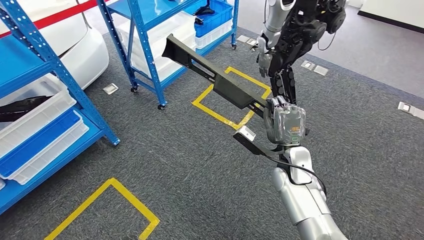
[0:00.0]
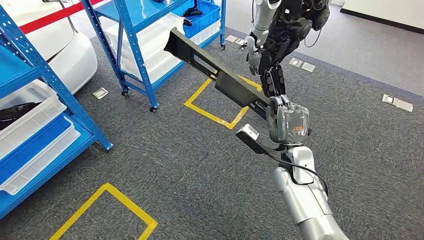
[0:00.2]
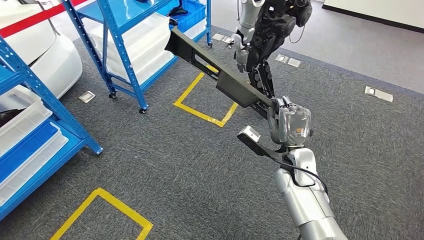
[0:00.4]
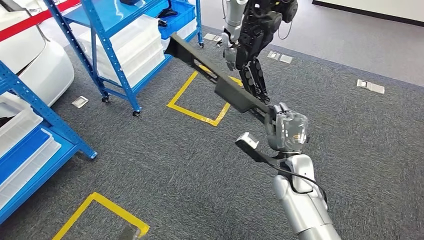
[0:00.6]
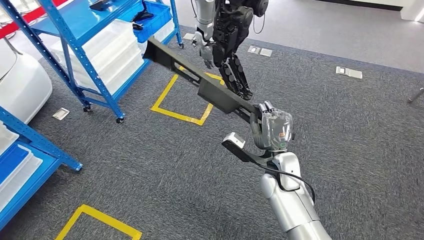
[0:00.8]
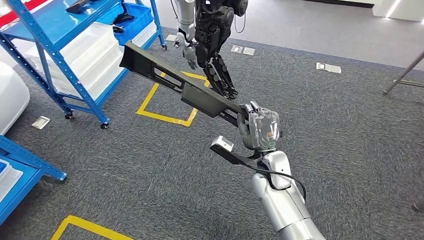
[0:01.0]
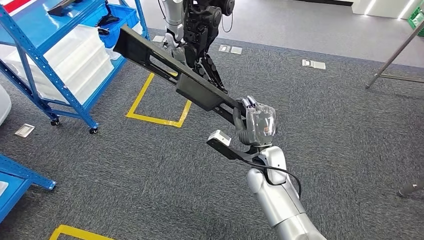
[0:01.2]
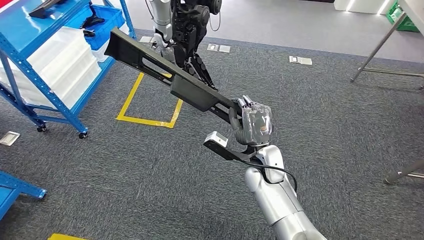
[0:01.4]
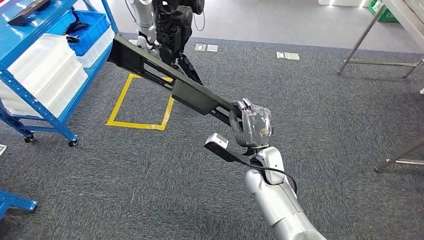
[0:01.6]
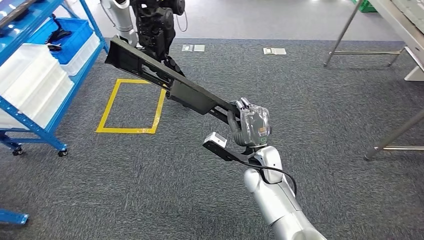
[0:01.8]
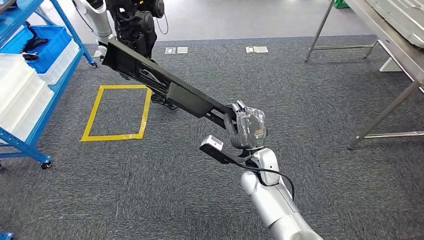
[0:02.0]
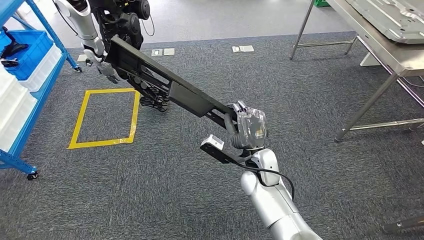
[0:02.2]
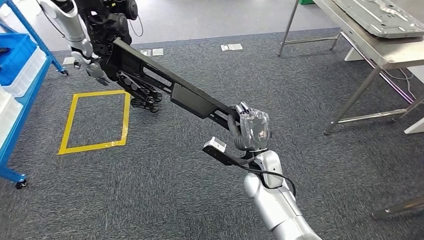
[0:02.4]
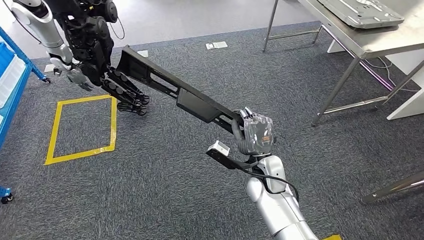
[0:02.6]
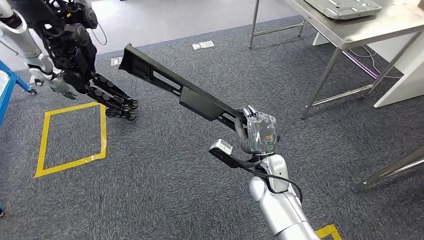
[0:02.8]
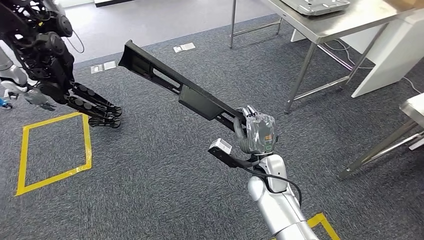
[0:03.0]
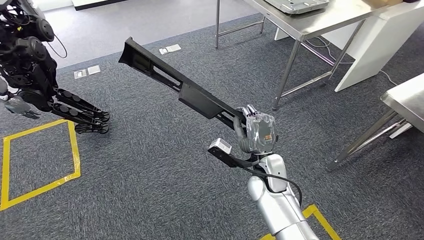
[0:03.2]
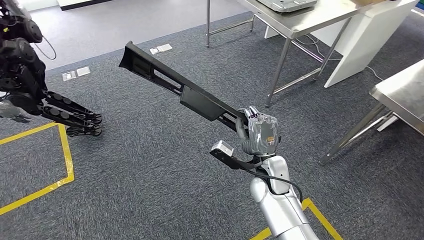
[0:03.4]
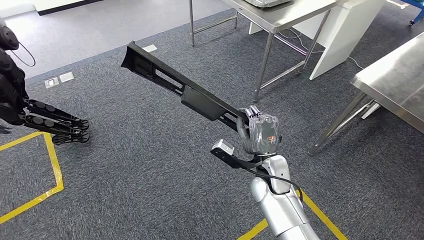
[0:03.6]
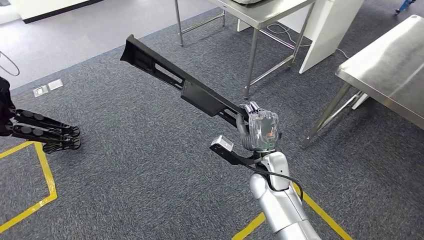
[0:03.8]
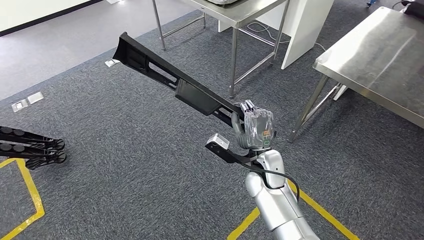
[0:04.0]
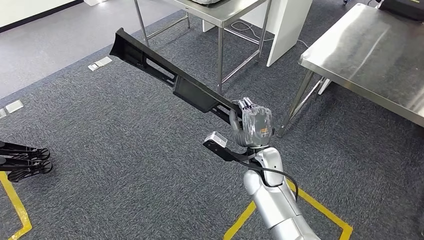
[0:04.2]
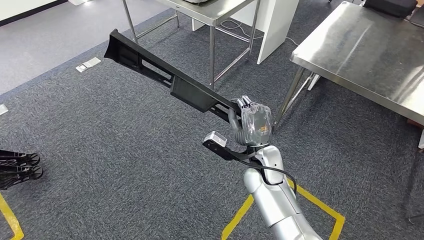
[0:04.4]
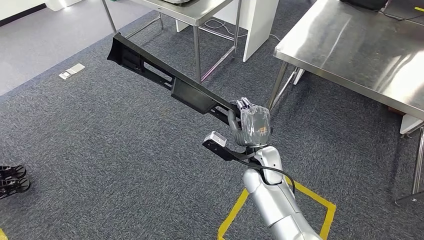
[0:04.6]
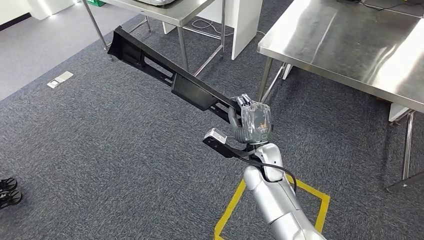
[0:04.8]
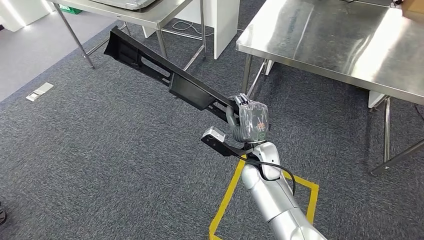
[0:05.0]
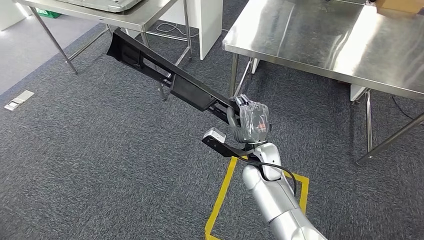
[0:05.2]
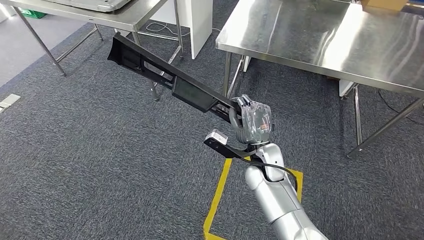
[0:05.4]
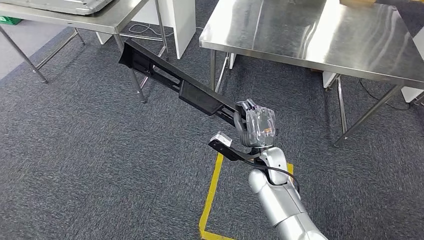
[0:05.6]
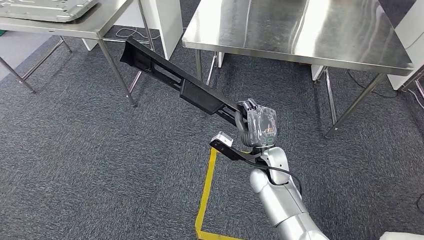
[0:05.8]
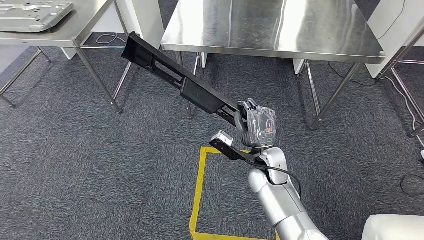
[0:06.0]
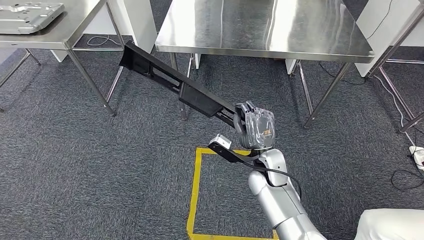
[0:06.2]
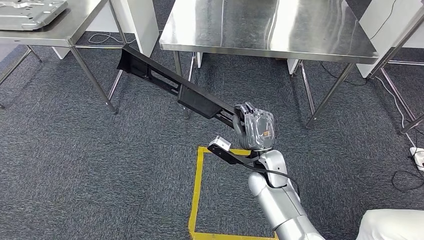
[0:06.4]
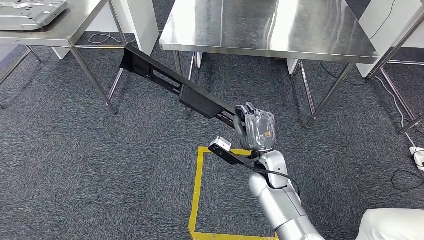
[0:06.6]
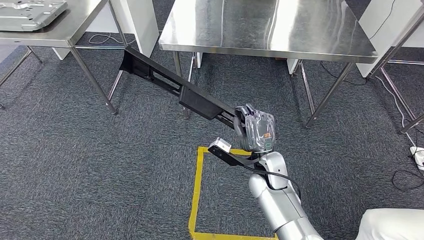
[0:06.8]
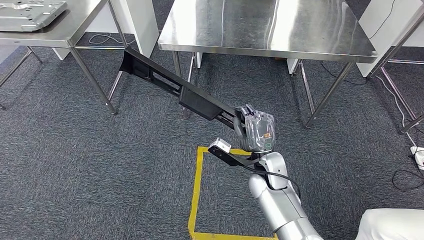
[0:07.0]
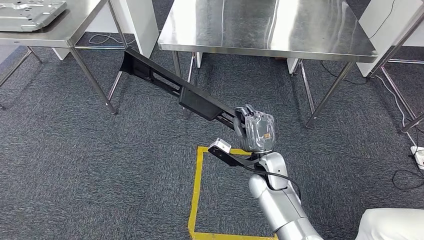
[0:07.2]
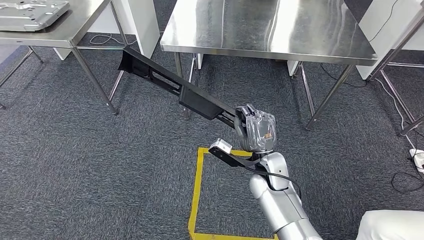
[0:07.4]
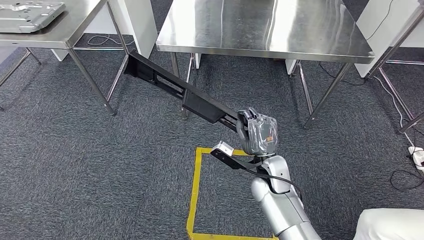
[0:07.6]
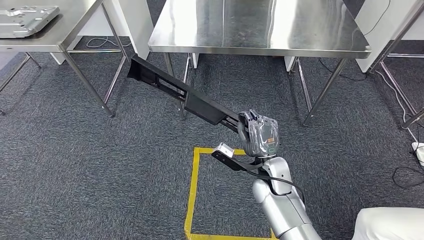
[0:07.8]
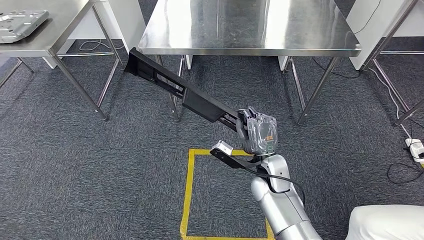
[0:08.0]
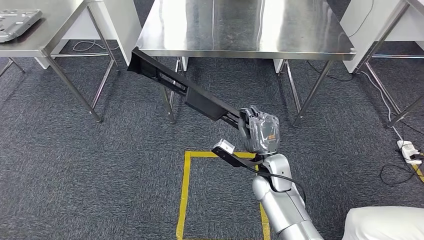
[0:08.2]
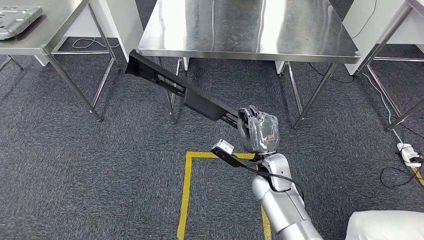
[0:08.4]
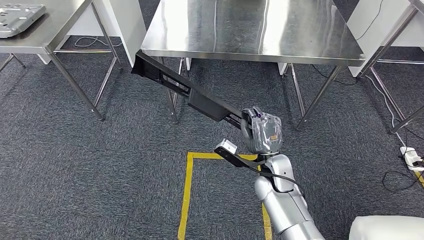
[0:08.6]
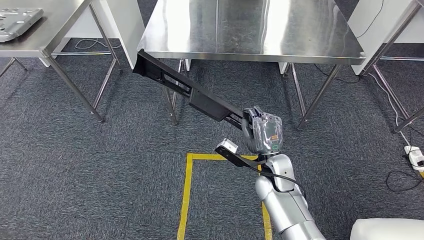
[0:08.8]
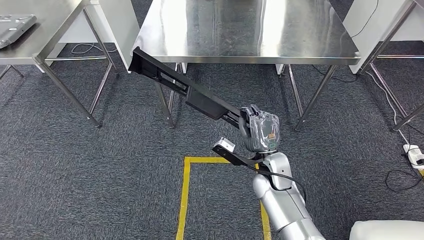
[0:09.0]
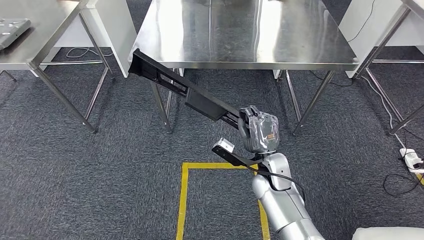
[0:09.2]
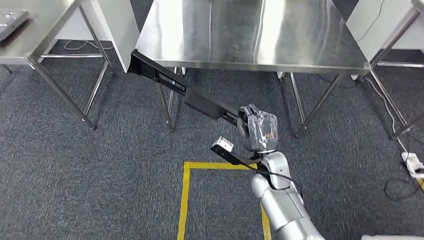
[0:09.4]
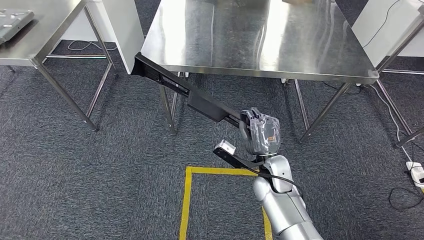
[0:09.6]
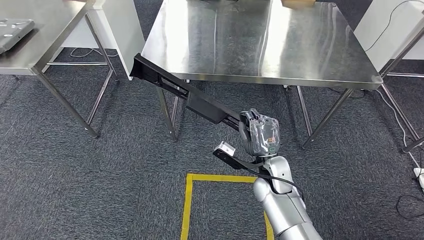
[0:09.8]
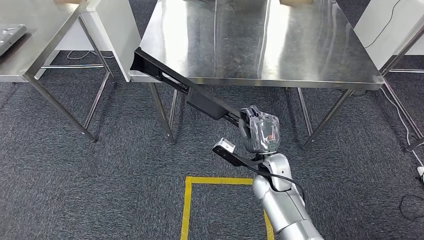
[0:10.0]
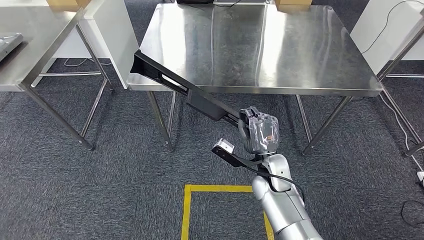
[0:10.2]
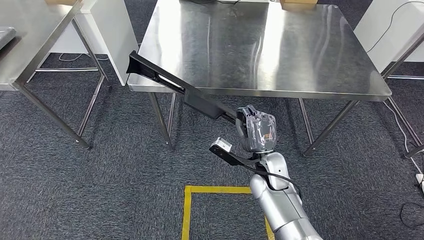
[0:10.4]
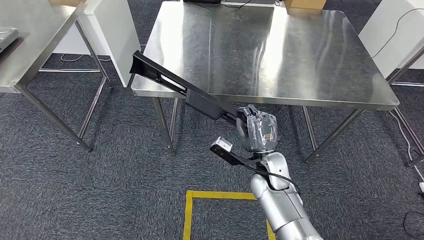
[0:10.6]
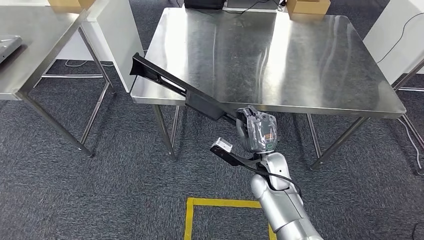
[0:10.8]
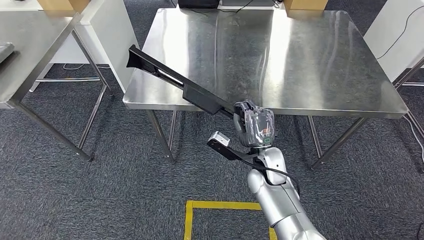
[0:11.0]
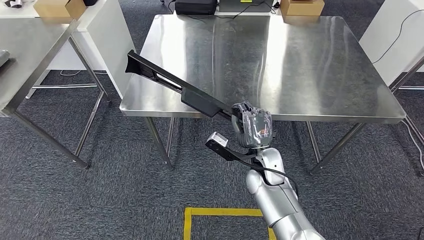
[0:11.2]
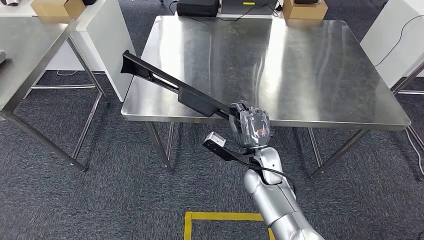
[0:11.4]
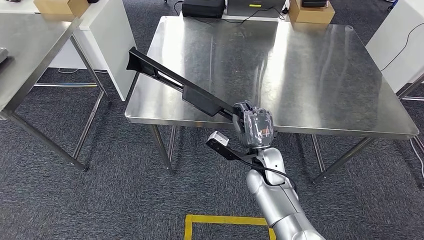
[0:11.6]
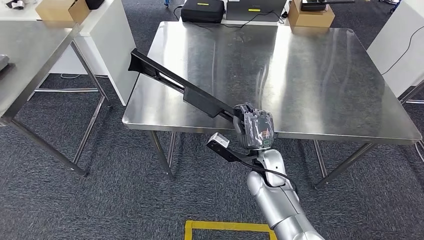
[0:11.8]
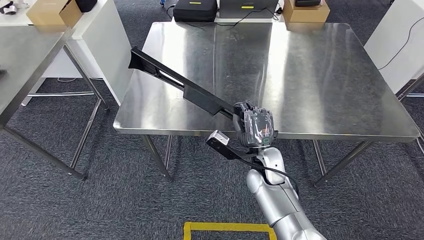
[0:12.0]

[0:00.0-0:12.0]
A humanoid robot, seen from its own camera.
Step, 0:00.0 to 0:11.6: Move the large material to the workbench.

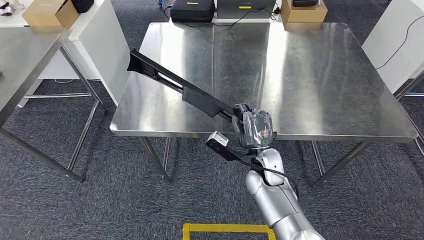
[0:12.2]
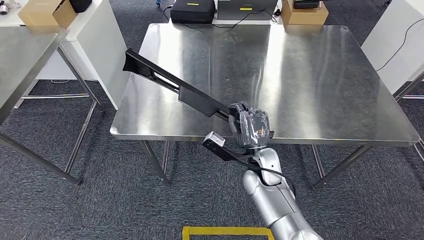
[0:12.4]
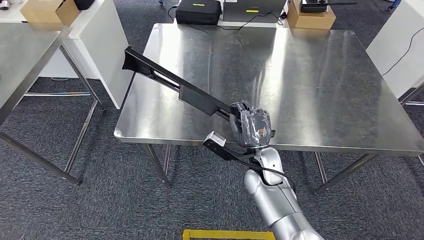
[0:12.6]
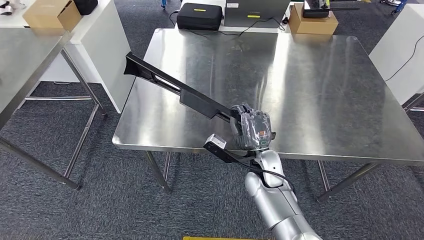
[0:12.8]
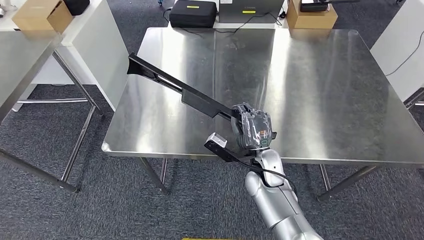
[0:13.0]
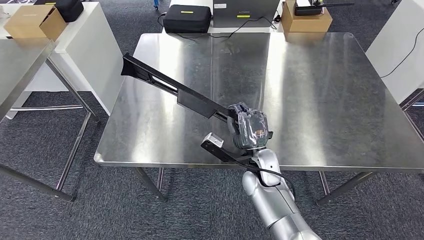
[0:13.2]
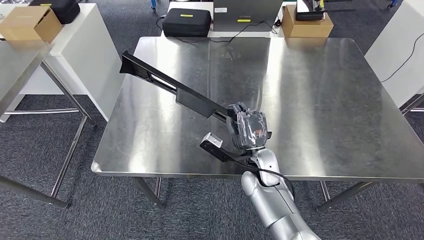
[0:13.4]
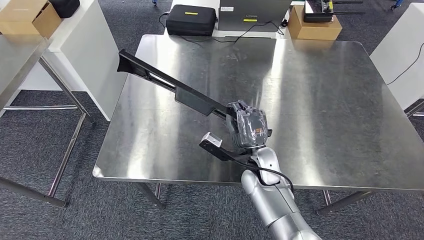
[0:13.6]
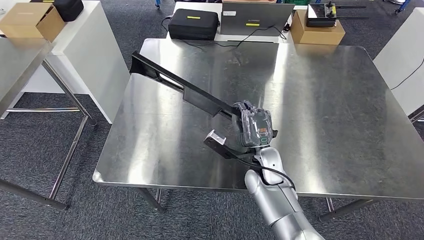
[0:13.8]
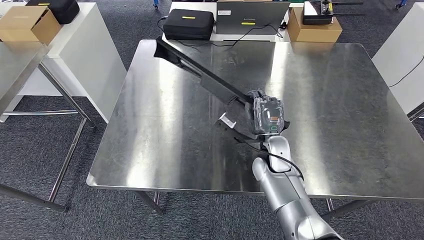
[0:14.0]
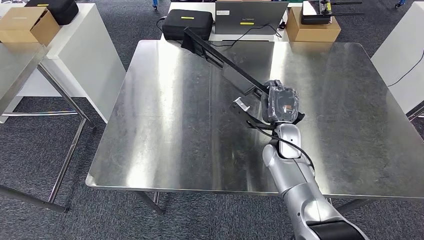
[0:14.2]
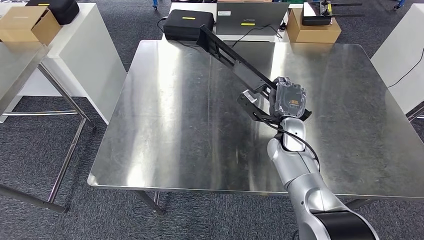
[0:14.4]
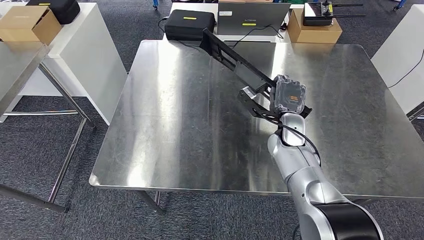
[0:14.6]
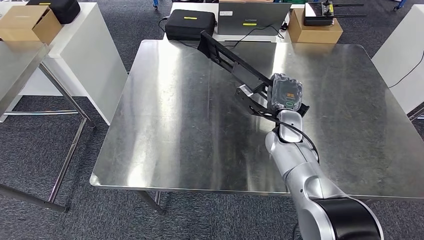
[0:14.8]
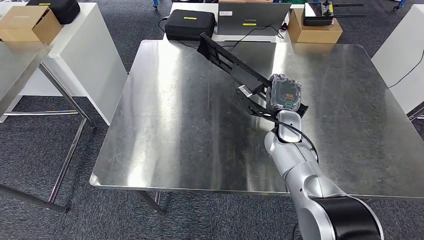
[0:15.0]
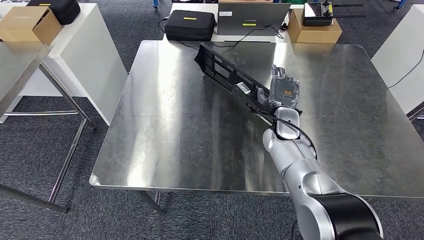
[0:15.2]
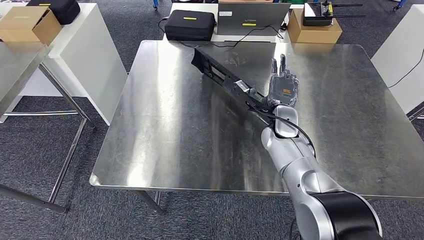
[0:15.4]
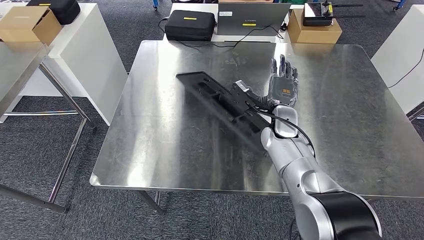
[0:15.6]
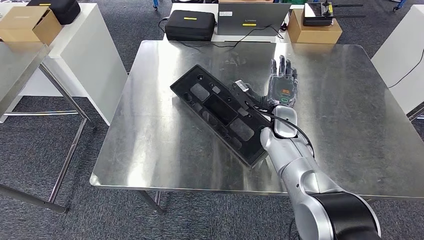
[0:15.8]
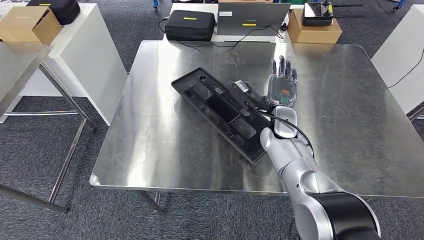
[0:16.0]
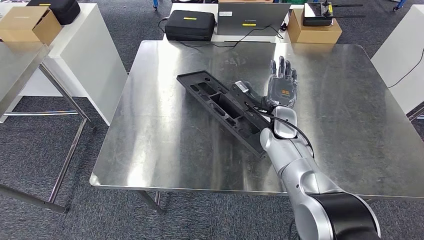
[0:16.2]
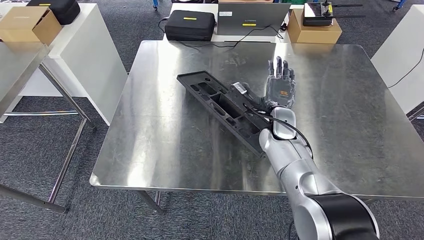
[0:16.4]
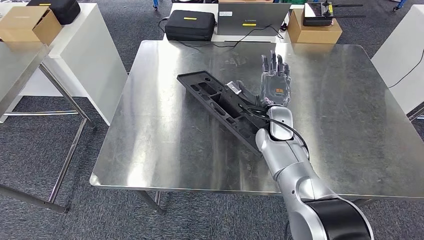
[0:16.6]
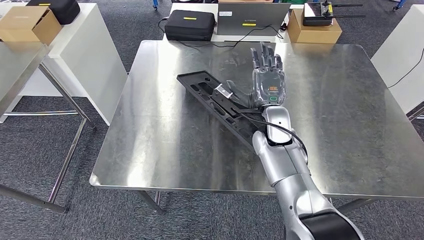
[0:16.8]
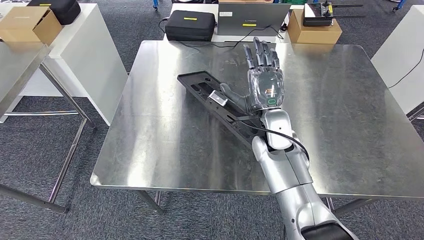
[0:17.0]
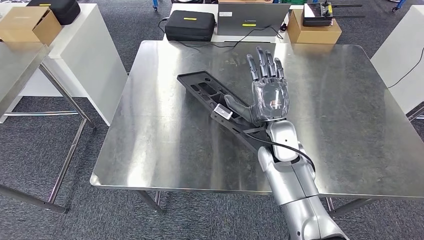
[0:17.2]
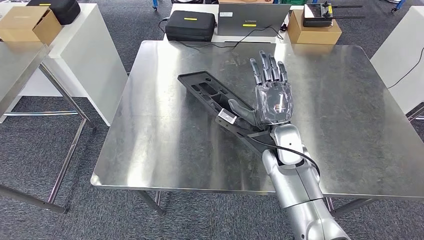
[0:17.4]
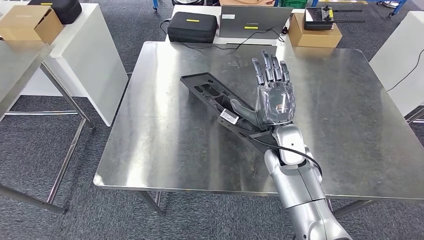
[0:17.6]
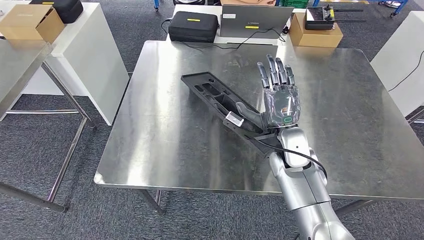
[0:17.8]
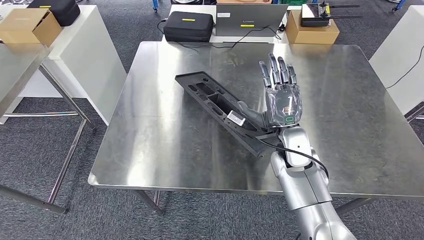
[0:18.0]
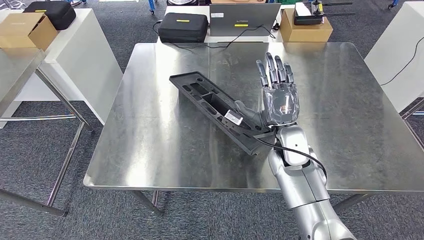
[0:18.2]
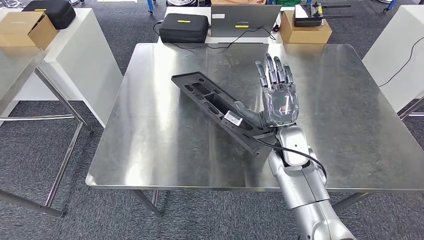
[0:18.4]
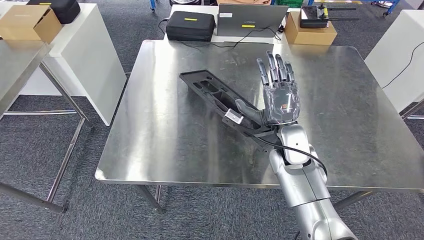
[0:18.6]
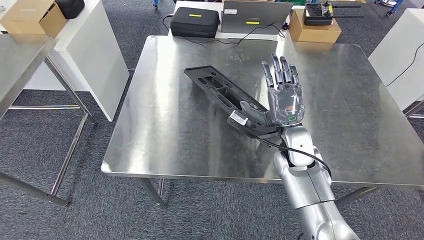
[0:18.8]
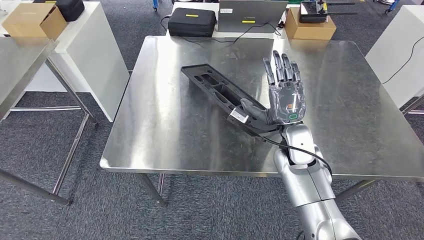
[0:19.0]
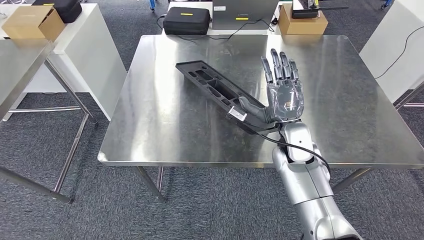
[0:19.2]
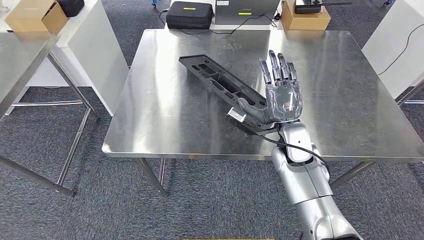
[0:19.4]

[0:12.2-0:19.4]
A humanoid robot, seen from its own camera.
0:15.0 to 0:16.6: The hands move only a little.
0:16.6 to 0:18.0: The right hand travels backward by some 5 cm.
